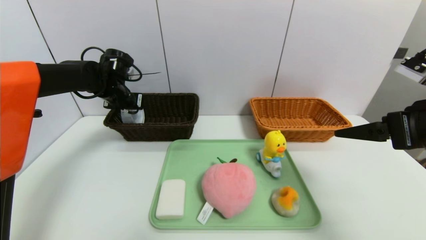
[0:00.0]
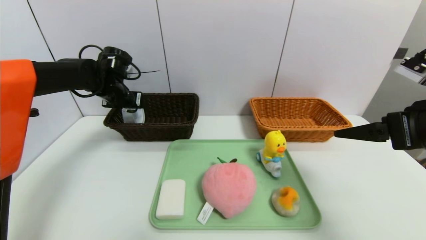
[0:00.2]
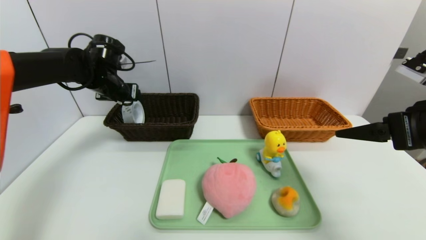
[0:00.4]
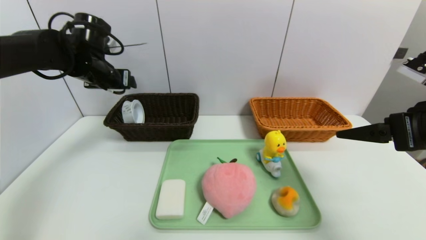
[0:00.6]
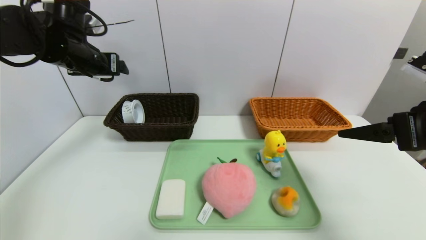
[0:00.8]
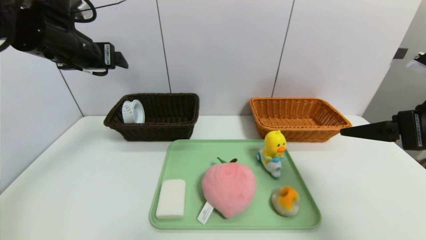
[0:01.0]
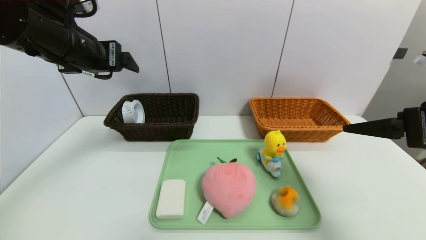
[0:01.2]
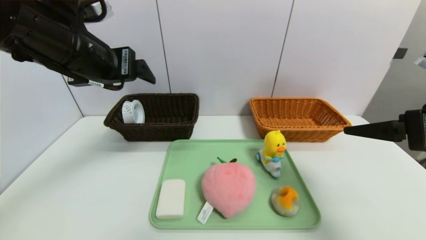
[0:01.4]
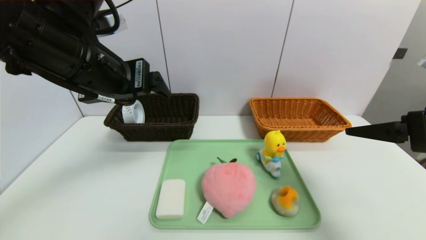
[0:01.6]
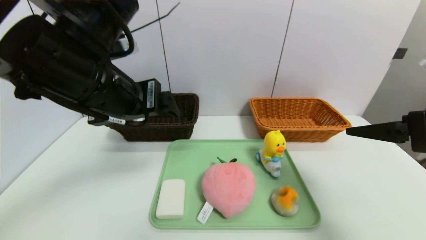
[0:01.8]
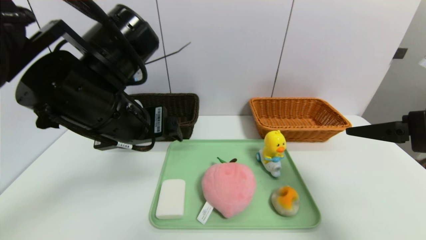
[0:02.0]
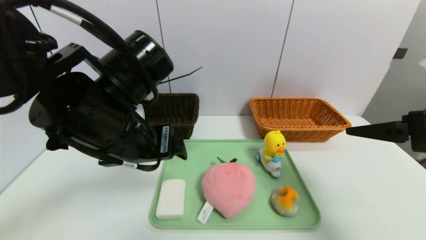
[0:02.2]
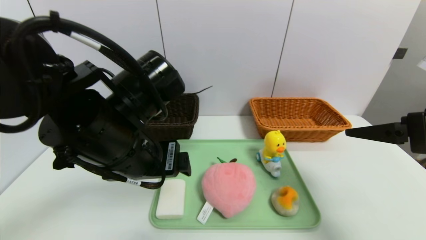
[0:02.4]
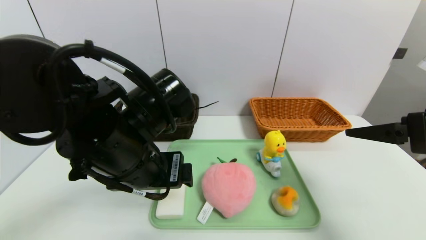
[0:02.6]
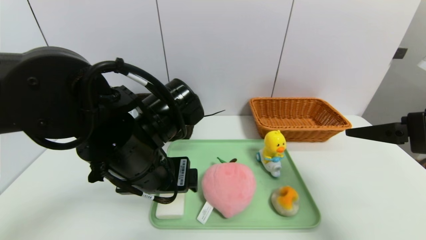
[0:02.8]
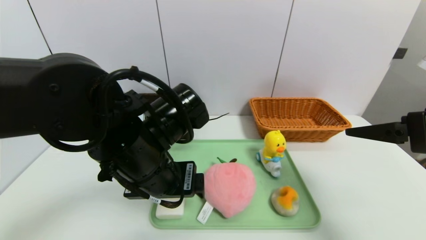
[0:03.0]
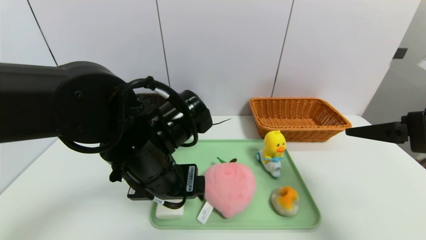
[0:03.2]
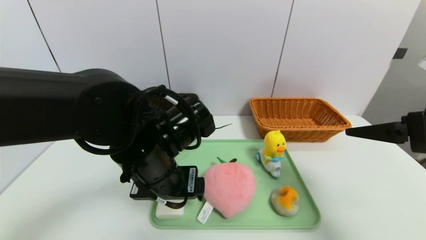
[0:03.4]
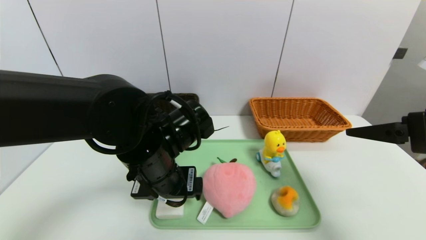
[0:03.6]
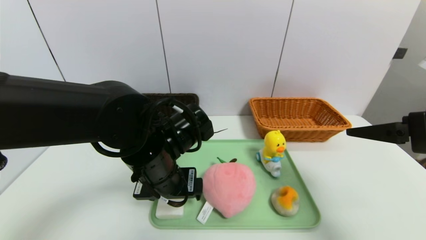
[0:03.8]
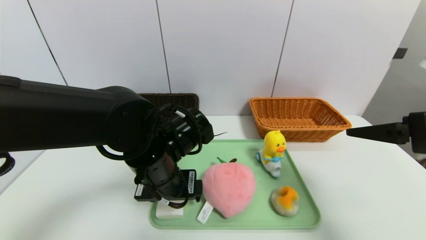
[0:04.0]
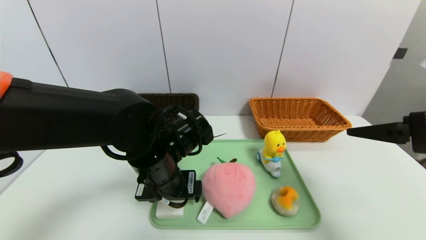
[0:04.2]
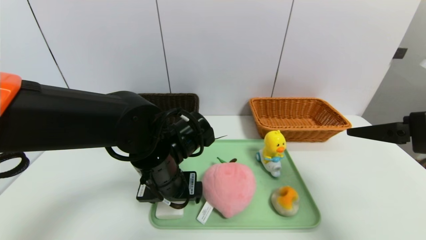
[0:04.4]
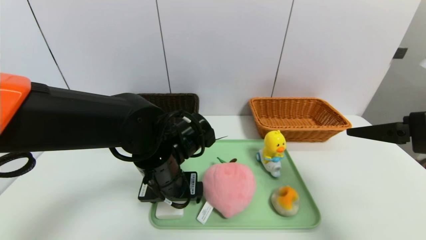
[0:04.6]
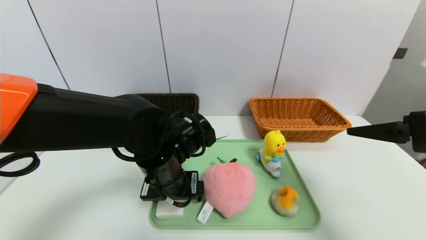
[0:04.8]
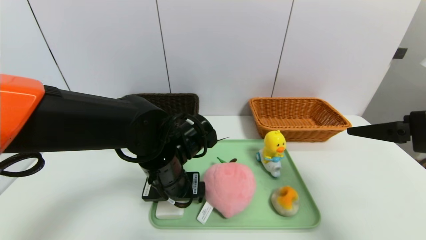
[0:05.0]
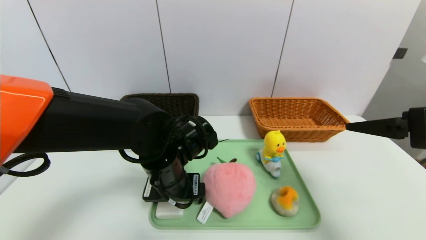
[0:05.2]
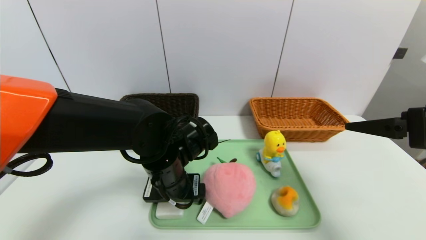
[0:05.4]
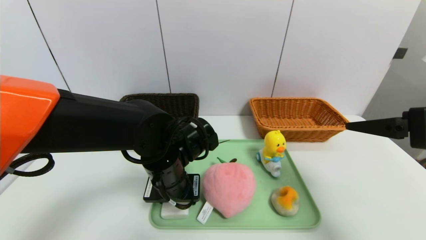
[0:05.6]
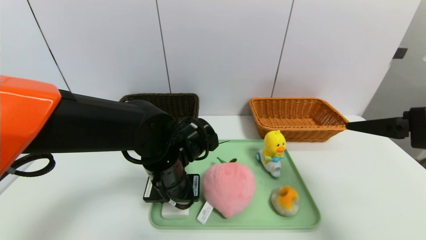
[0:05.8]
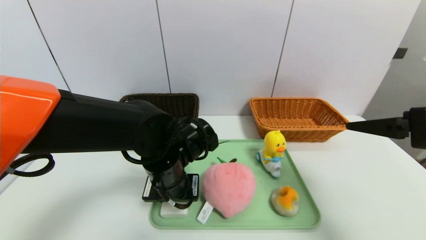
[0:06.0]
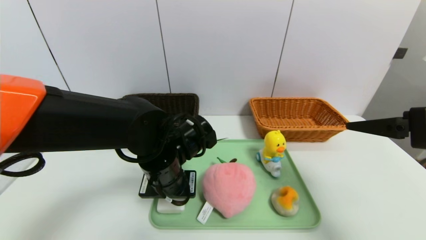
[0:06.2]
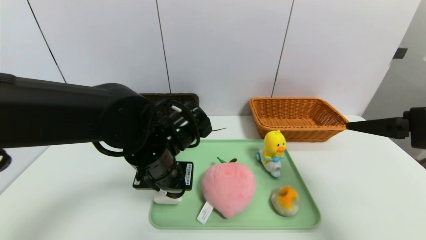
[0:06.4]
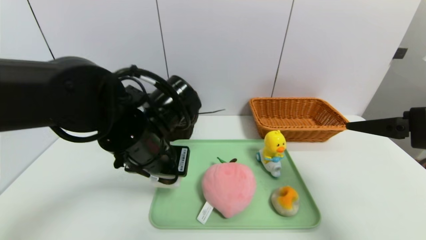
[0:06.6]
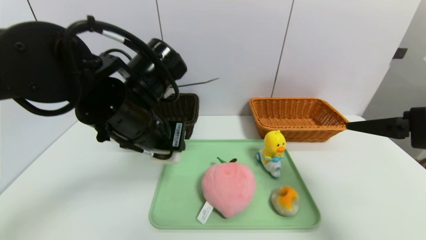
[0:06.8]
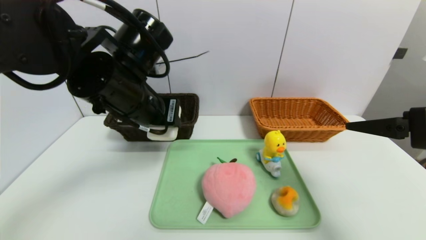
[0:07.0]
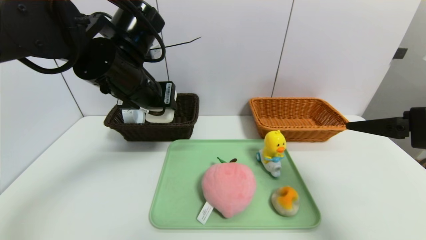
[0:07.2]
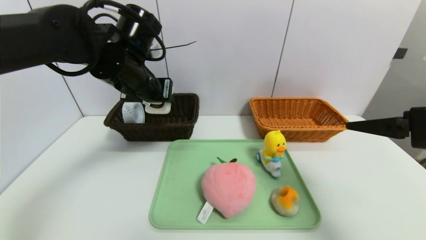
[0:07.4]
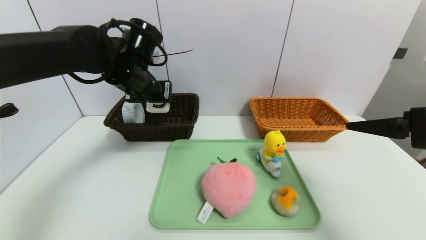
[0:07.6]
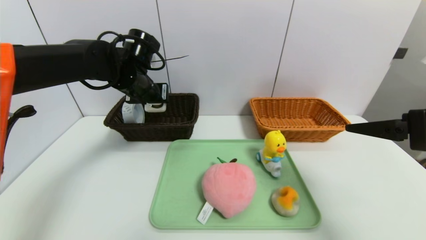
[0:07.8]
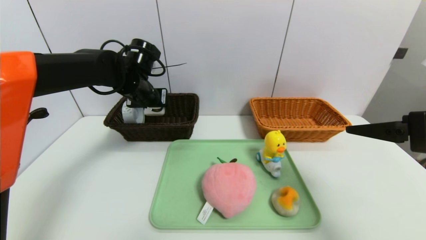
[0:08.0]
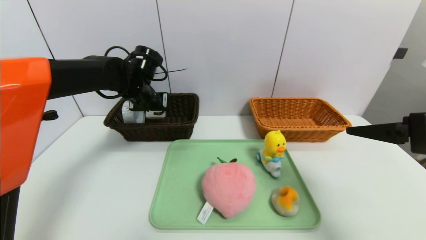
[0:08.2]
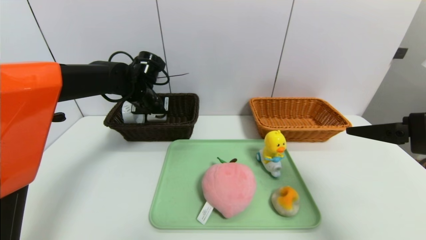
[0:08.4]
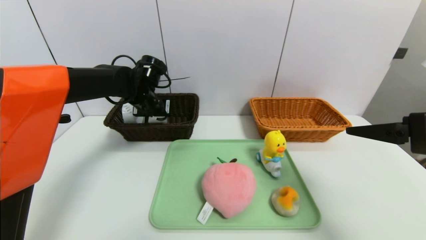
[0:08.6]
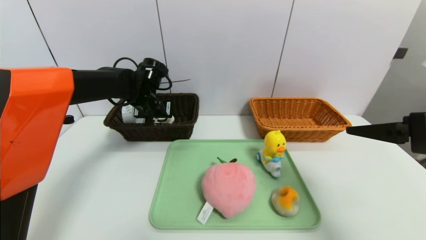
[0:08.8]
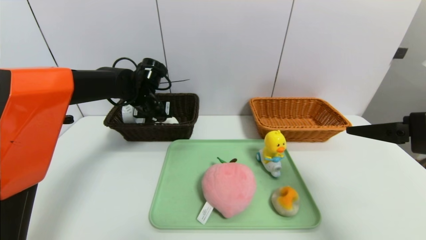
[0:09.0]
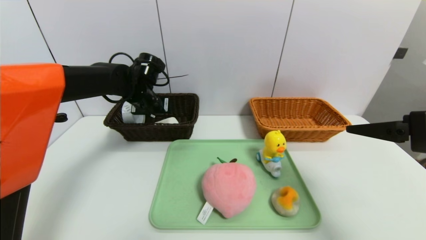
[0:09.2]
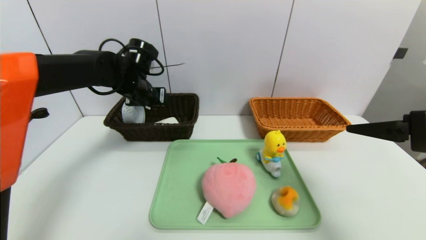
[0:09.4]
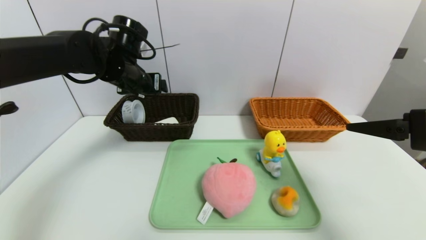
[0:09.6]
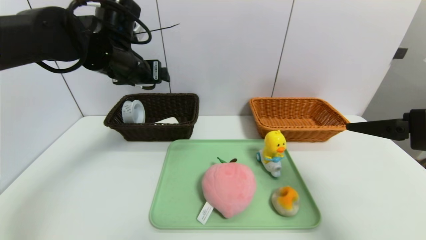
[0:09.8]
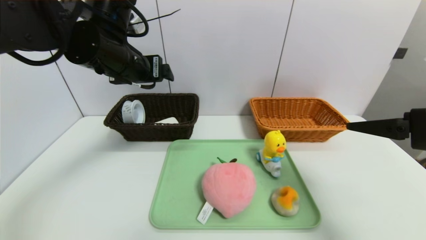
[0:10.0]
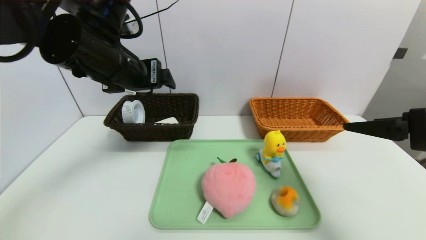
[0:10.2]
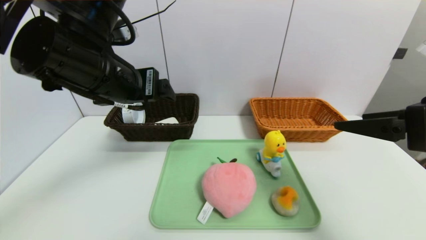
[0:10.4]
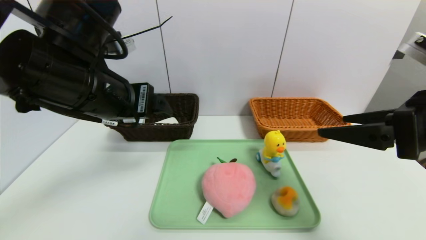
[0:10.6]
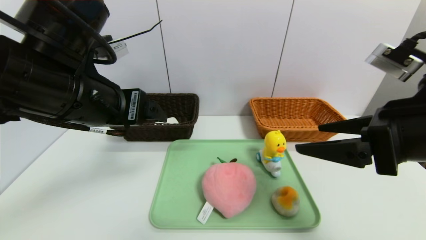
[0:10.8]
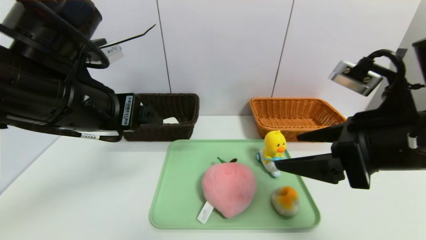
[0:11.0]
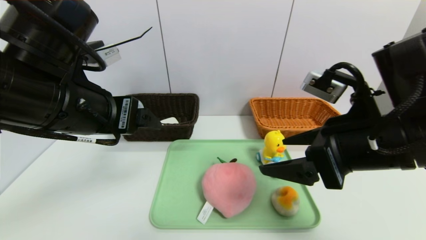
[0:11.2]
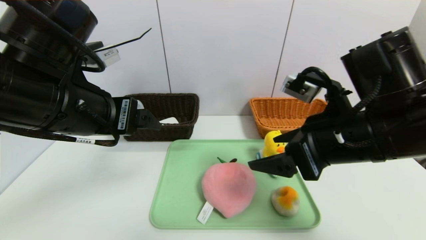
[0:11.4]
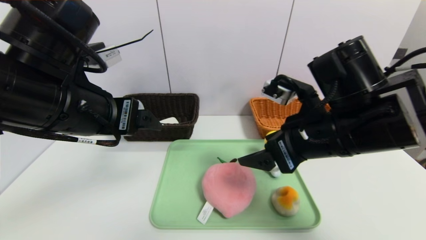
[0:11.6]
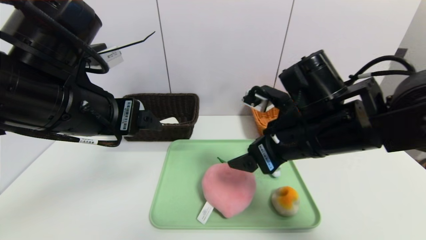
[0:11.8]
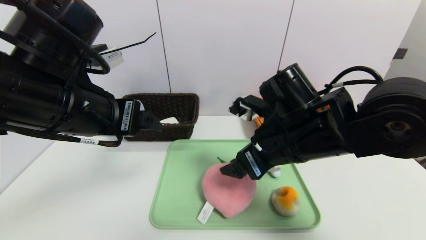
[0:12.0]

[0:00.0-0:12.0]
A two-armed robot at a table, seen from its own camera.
Task of the whole recording: place the food in the right basket with the right gripper, and place the non food items in the left basket with the left gripper.
Step, 0:00.6 to 0:09.2: Grasp the soap and put it in the left basket.
0:00.0 to 0:01.6: The left gripper goes some 25 cm backward, upward and to the right, and opens up.
0:01.6 to 0:03.0: The left gripper is displaced downward and to the right by approximately 15 cm.
0:03.0 to 0:04.4: The left gripper is displaced downward by roughly 5 cm.
0:04.4 to 0:06.0: The left gripper closes its fingers.
0:06.0 to 0:07.6: The left gripper goes roughly 20 cm upward, forward and to the left.
0:07.6 to 0:09.0: The left gripper shifts roughly 10 cm downward and forward, and opens its fingers.
0:09.0 to 0:10.4: The left gripper shifts roughly 25 cm backward and upward.
0:10.4 to 0:12.0: The right gripper goes some 20 cm to the left, forward and downward.

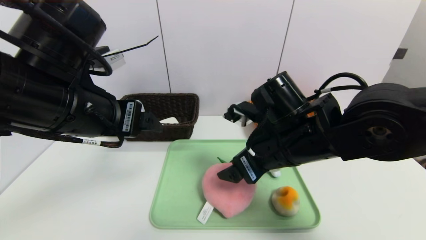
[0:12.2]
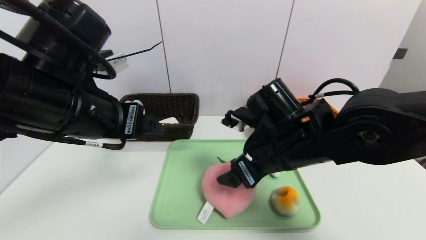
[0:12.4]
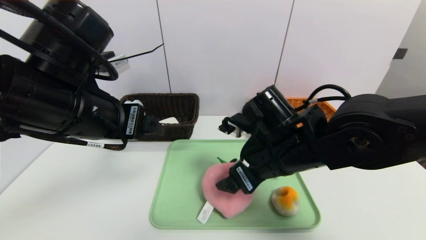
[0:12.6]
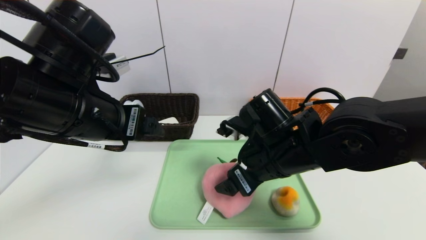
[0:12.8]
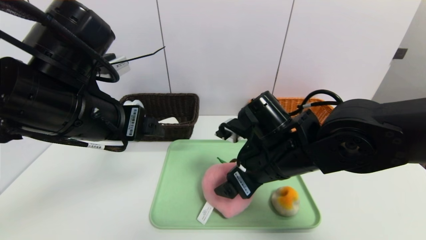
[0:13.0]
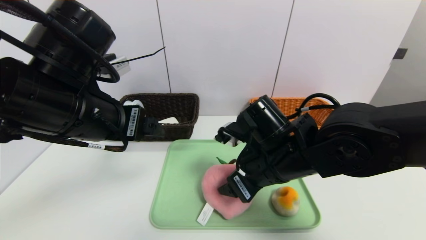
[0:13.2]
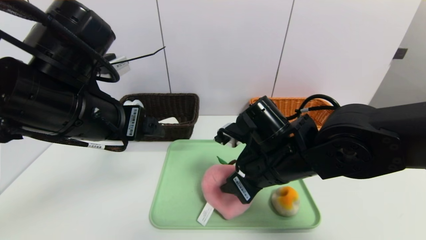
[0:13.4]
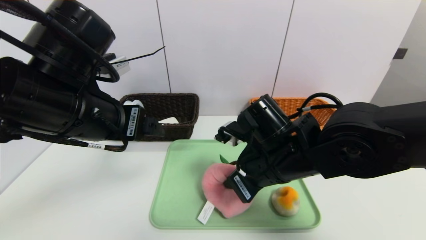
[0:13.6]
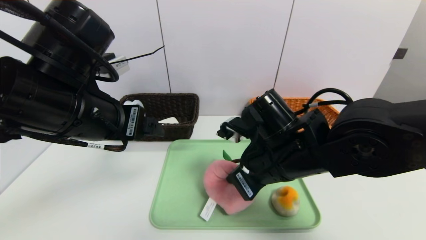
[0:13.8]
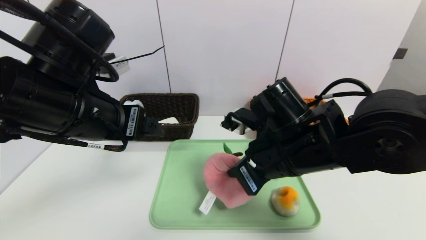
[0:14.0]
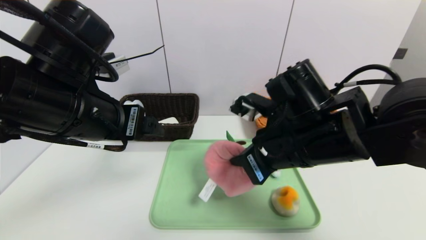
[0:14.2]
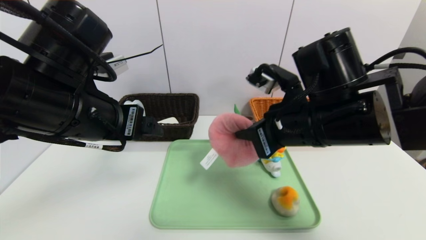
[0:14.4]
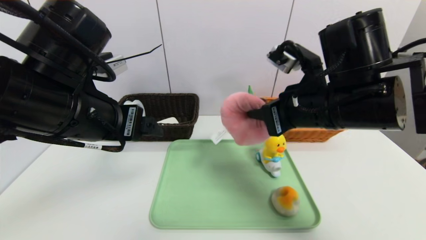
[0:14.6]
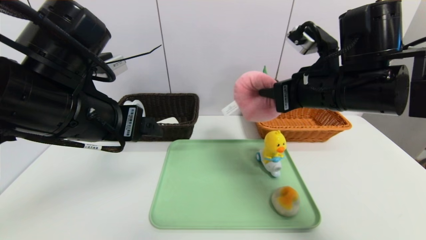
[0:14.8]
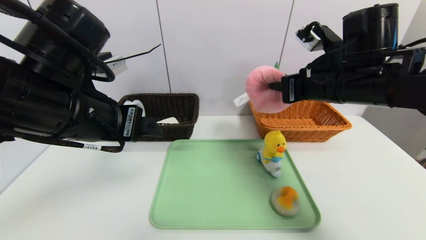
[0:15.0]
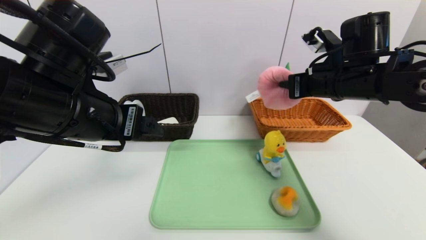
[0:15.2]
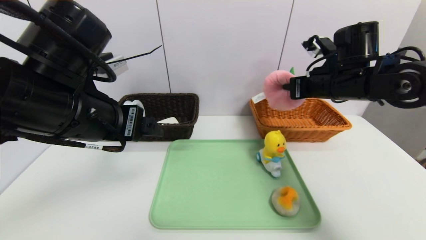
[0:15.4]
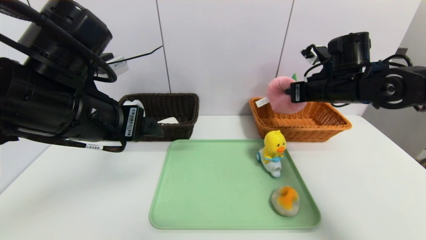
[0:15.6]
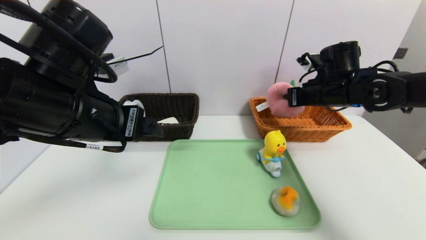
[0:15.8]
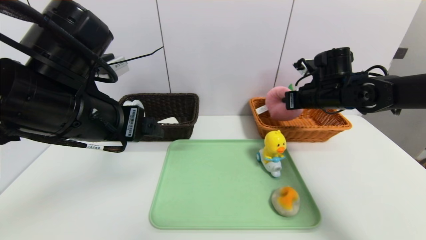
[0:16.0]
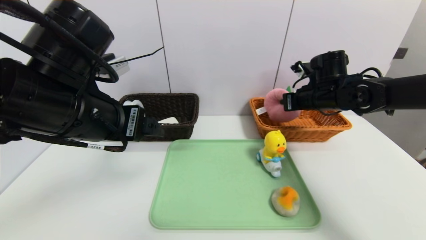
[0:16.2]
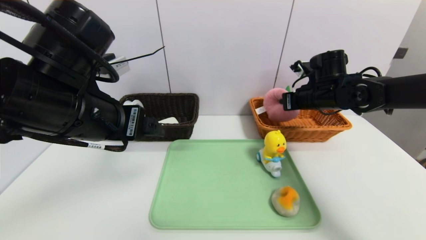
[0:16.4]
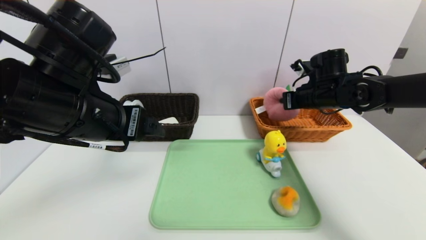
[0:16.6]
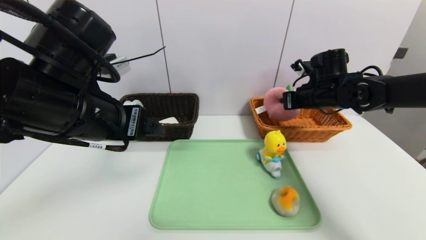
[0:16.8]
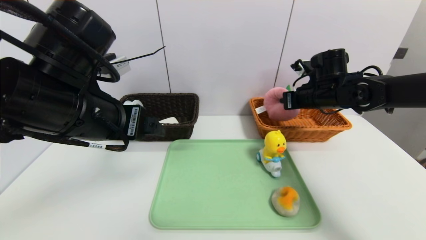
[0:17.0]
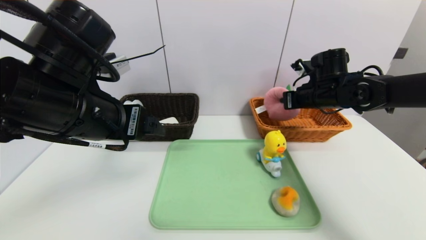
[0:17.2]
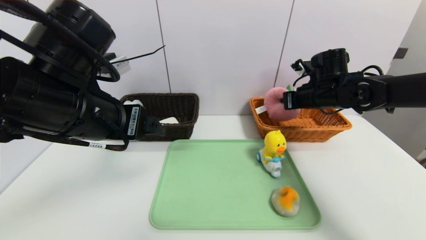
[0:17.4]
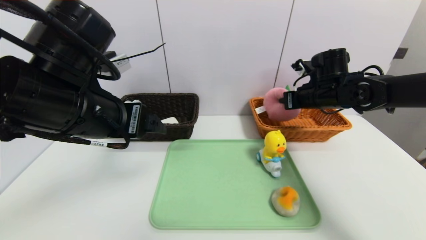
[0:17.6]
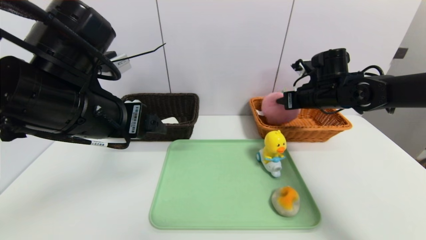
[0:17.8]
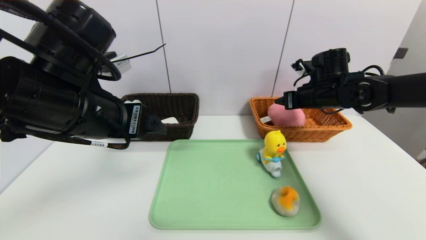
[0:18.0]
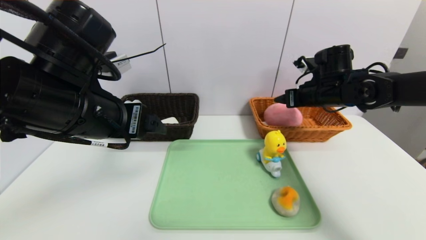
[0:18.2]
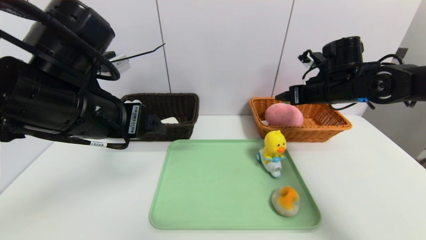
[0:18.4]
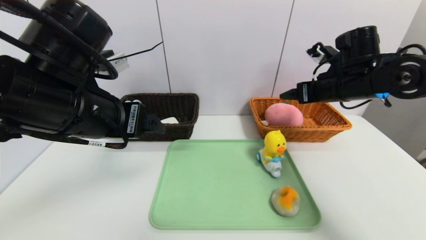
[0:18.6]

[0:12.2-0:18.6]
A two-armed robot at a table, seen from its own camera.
Task of the whole recording: place the food in the right basket with the right gripper, and place the non food items in the left basket with the left gripper.
Step, 0:12.2 to 0:18.2: Grasp the peach doll and put it in the right basket.
0:12.2 to 0:13.8: The right gripper closes.
0:13.8 to 0:15.4: The right gripper is displaced to the right, forward and upward by roughly 20 cm.
0:15.4 to 0:17.0: The right gripper shifts about 5 cm forward.
0:17.0 to 0:18.6: The right gripper shifts roughly 5 cm backward, and opens.
